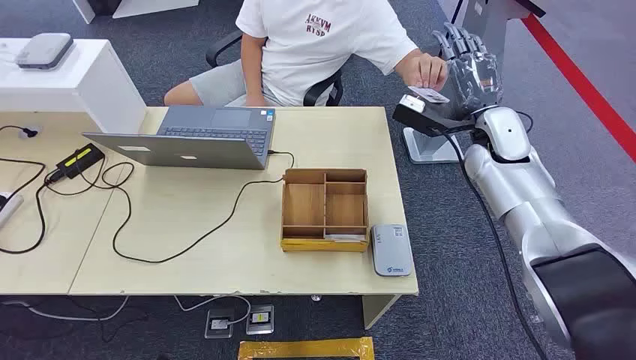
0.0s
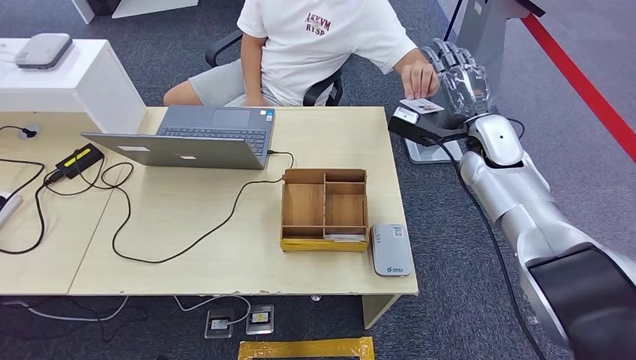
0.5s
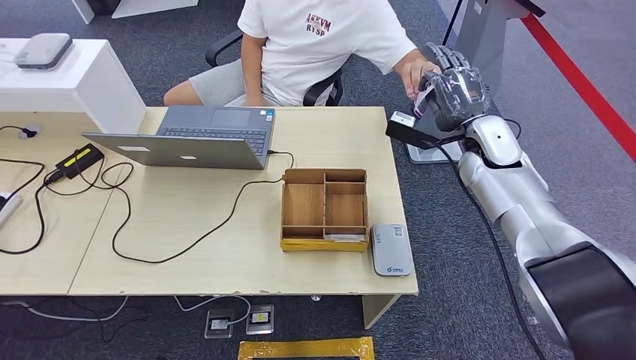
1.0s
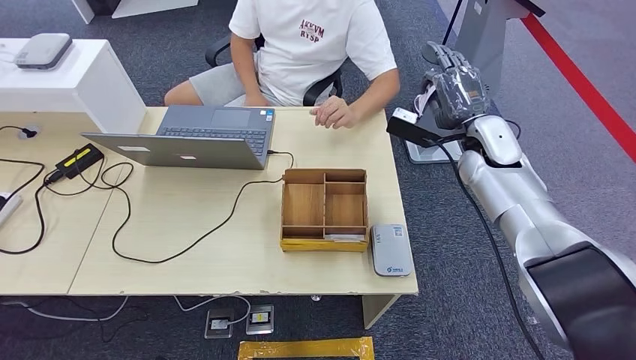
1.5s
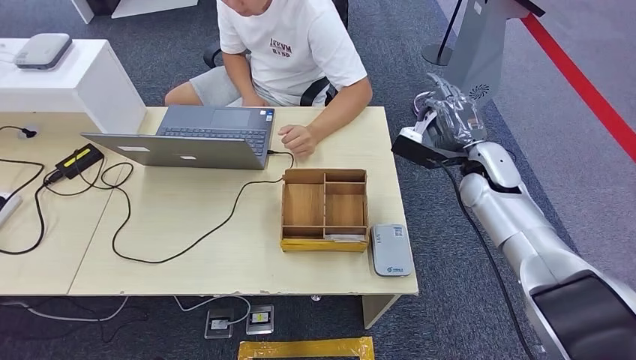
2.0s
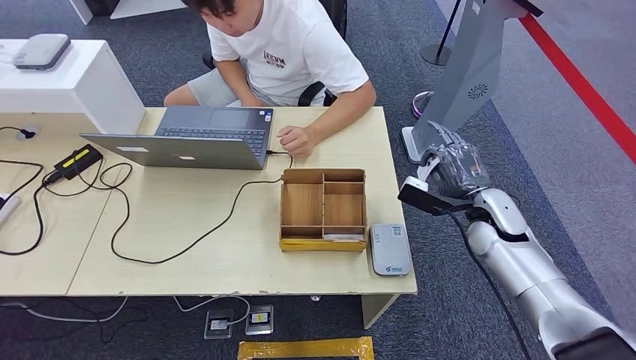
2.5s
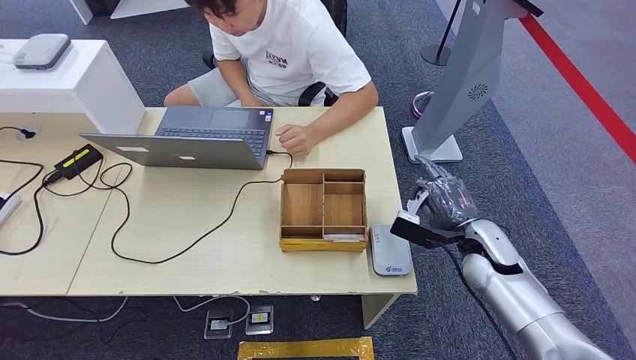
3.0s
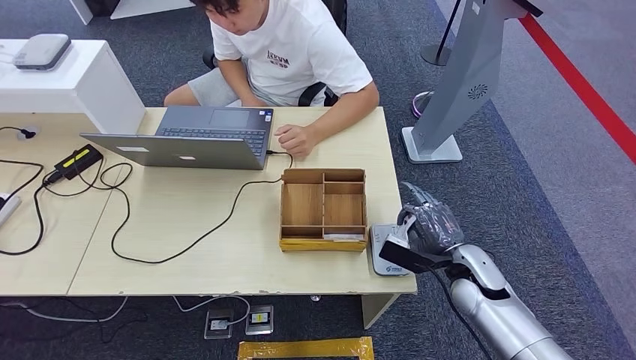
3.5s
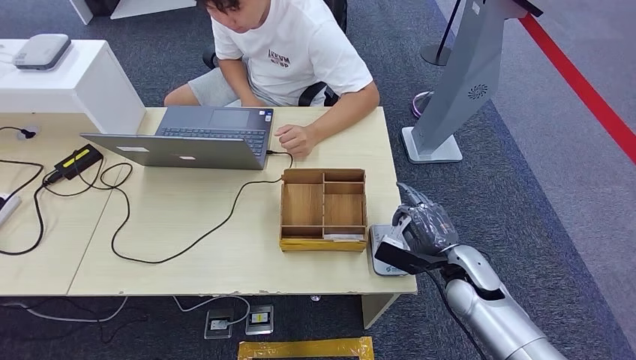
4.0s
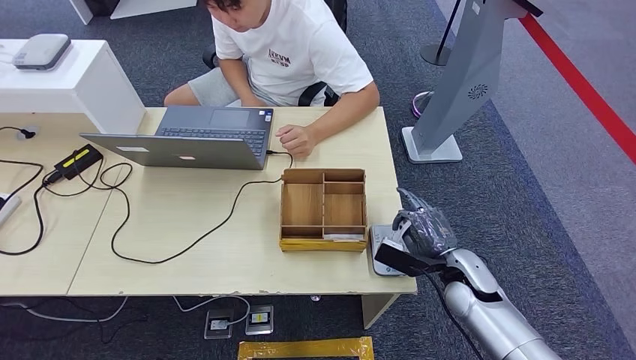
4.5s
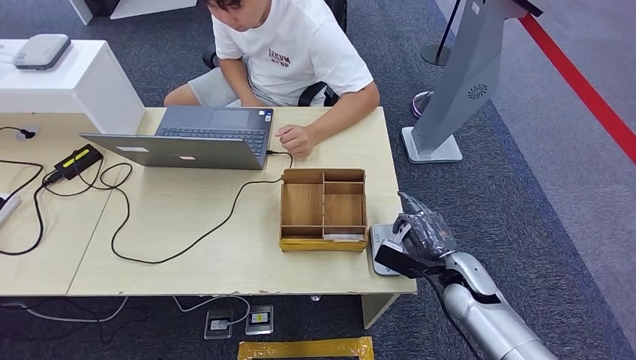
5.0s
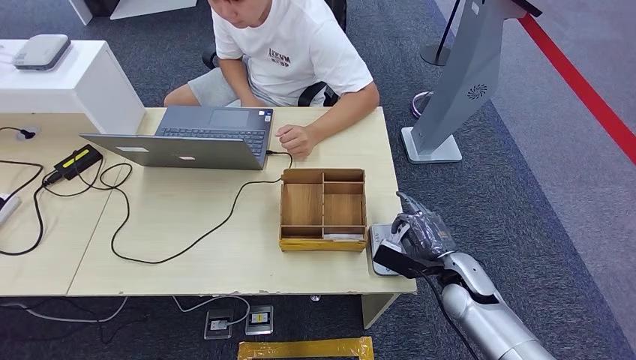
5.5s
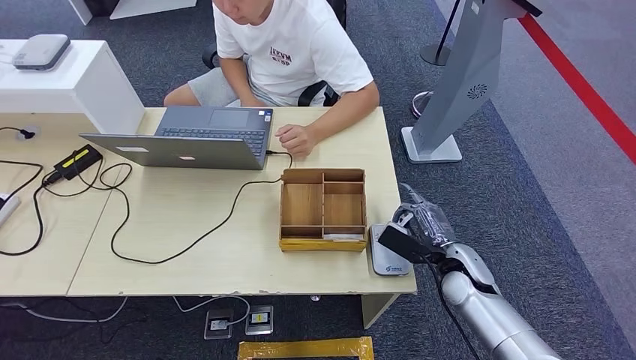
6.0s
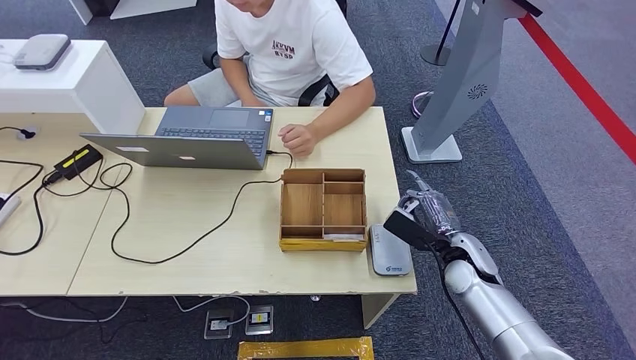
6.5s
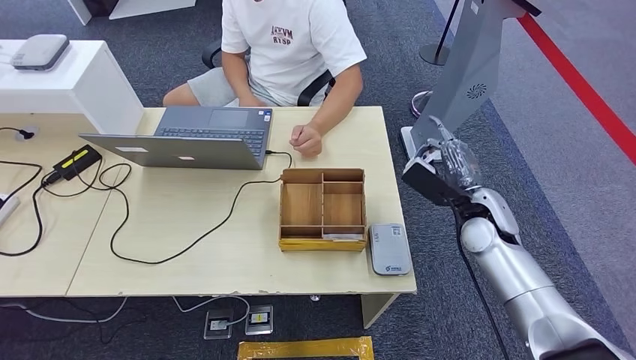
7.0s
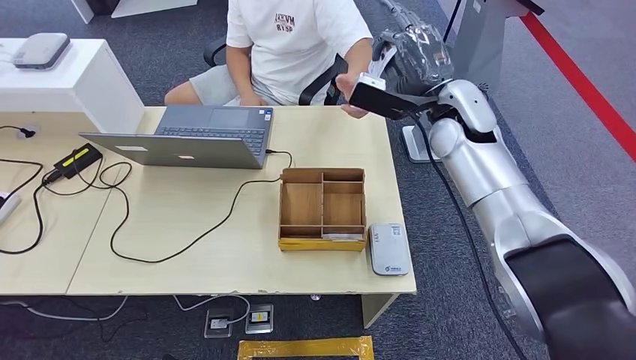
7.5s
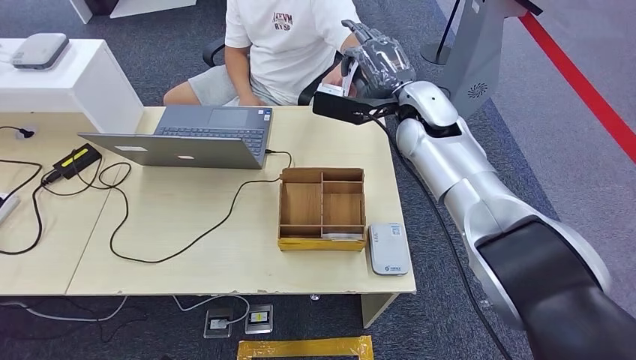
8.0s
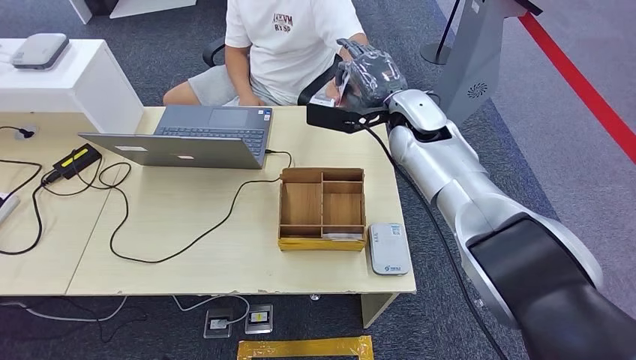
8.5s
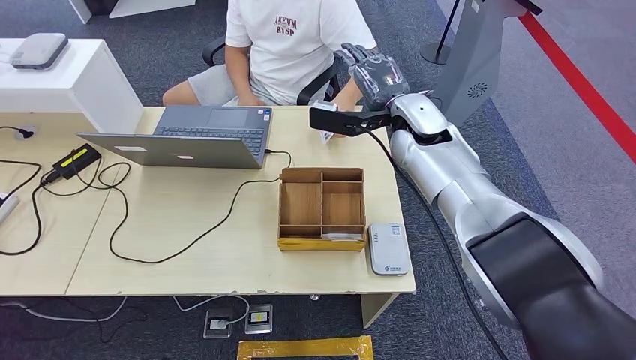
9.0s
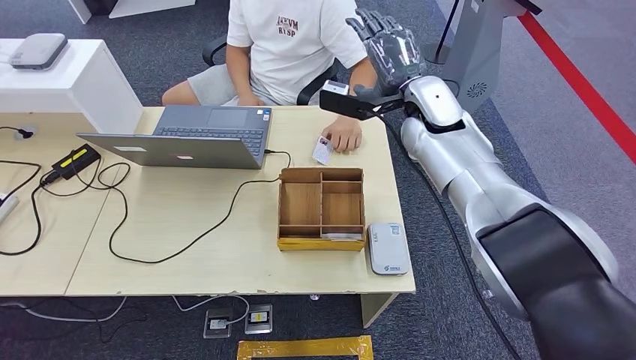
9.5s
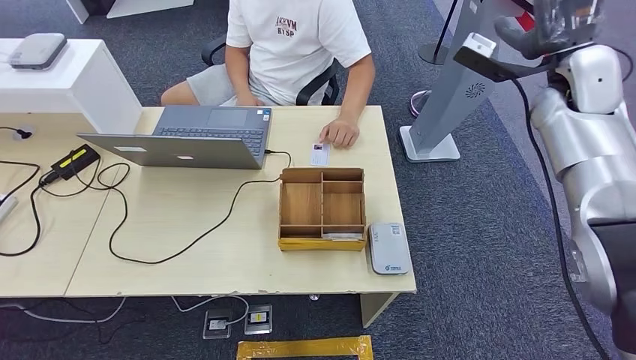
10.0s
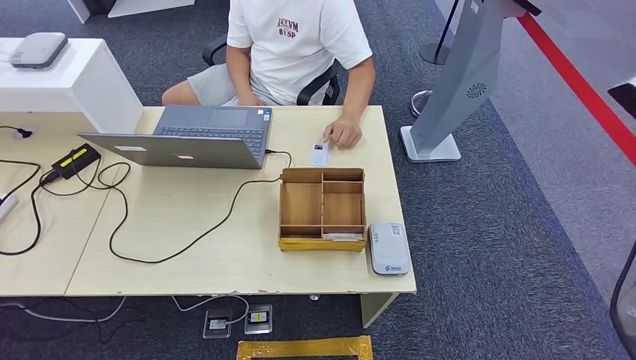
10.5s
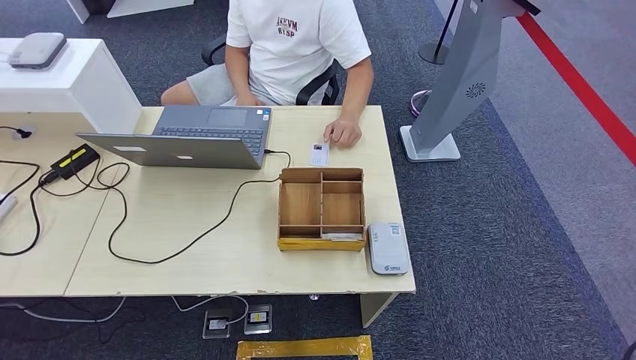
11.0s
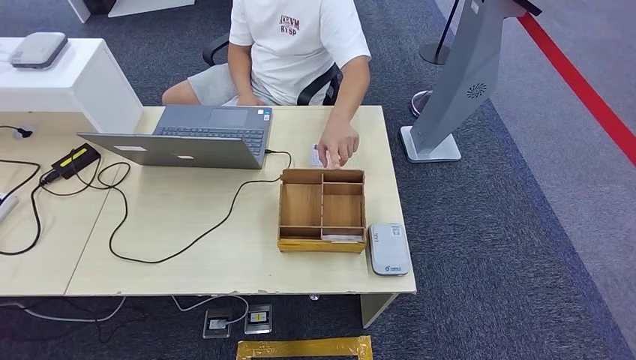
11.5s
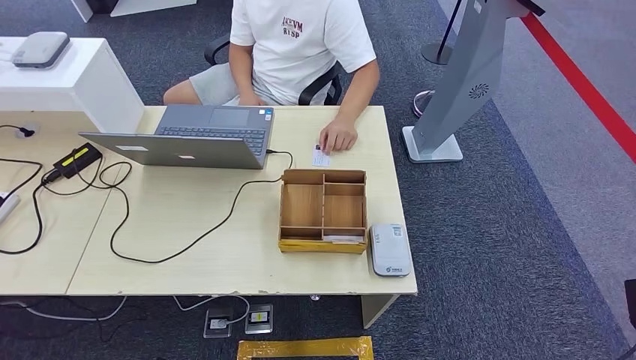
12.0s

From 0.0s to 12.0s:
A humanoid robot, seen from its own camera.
Step, from 0.0s to 2.5s: Take the ID card from the person's hand.
Step, from 3.0s to 7.0s: Place the ID card on the card reader.
Step, from 7.5s to 10.5s: Hand the ID card to the person.
From 2.0s to 4.0s: The right hand is displaced backward and downward by roughly 20 cm.
From 4.0s to 6.0s: The hands move only a little.
From 10.0s to 12.0s: The right hand heads downward, backward and to the right, covering roughly 50 cm.

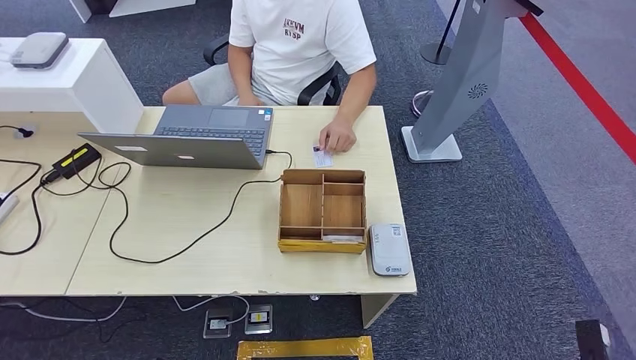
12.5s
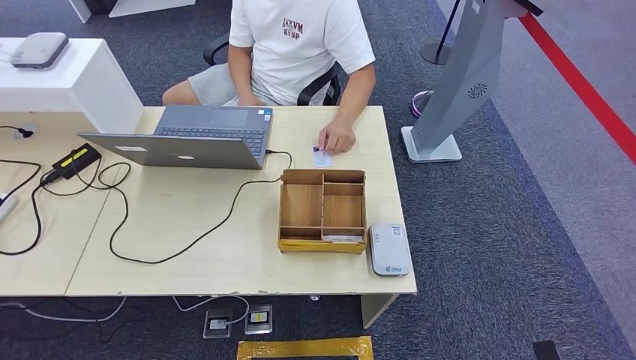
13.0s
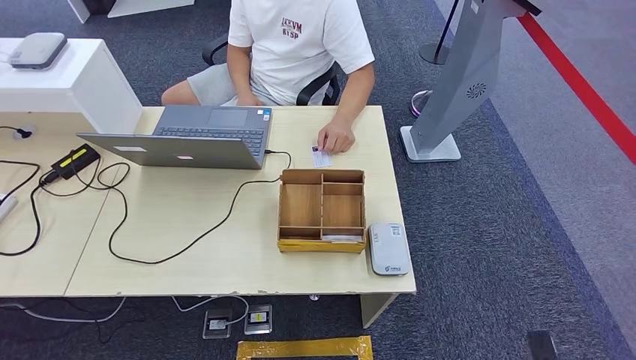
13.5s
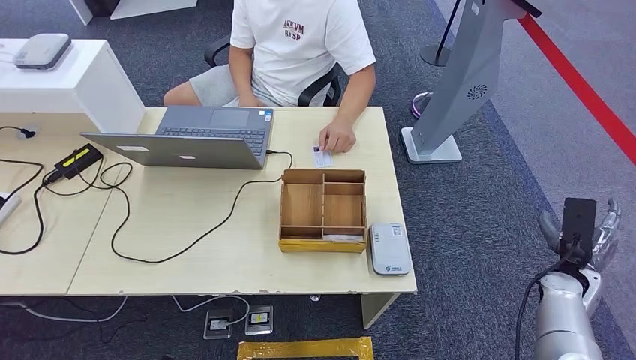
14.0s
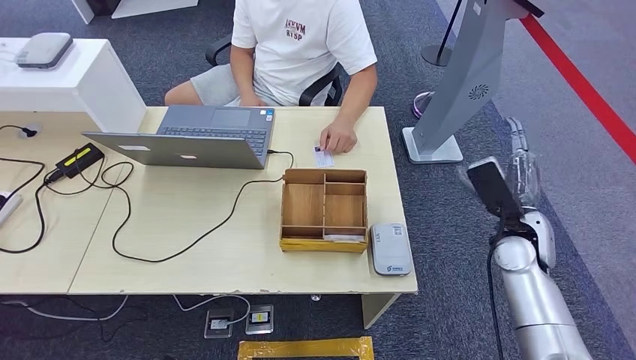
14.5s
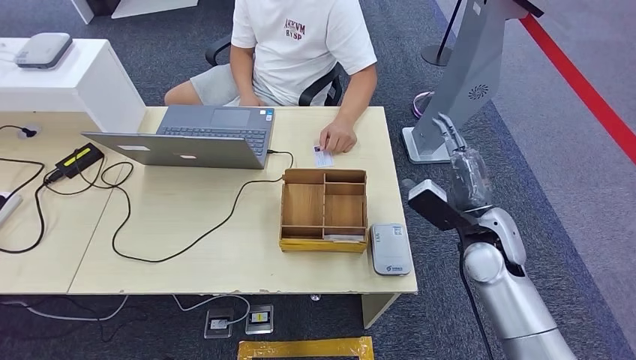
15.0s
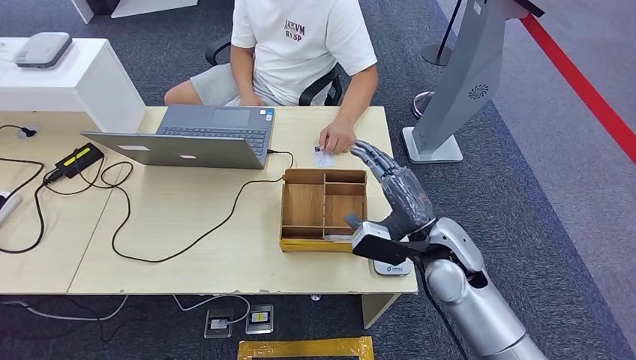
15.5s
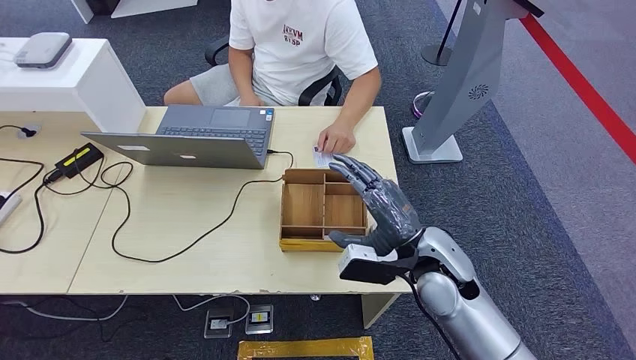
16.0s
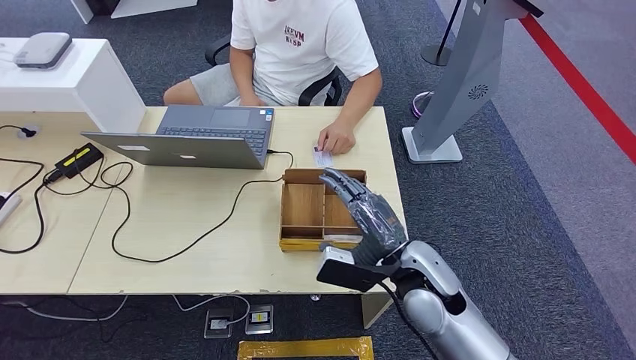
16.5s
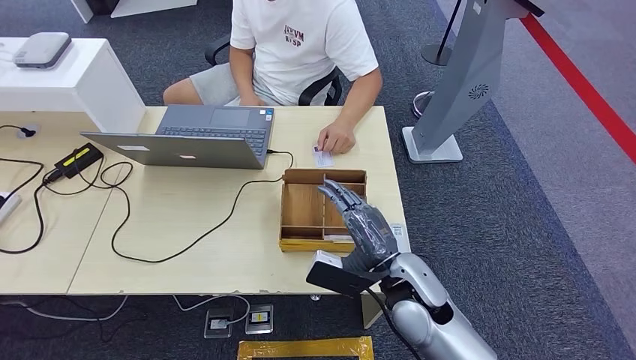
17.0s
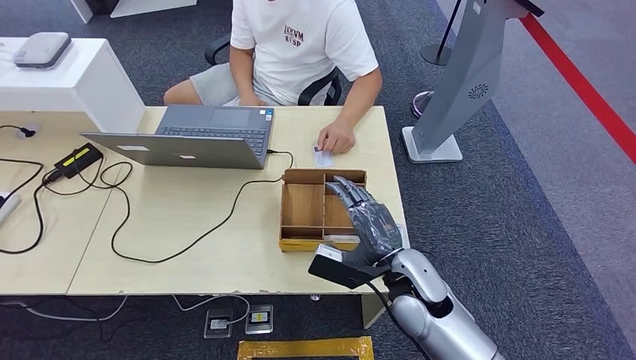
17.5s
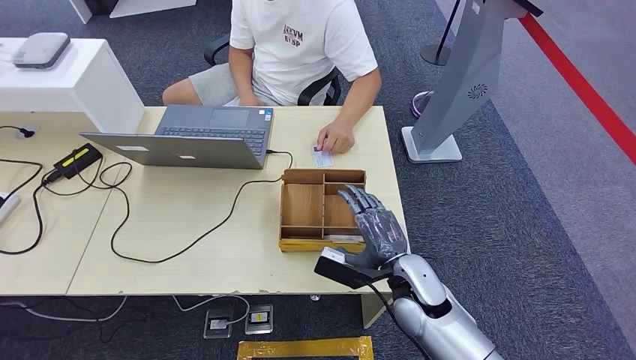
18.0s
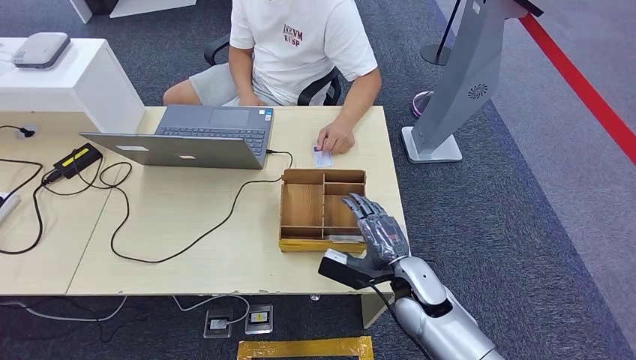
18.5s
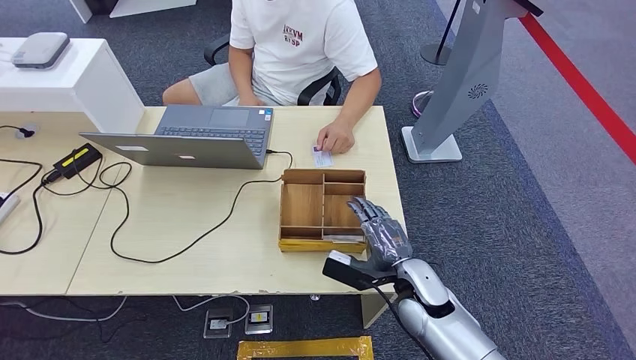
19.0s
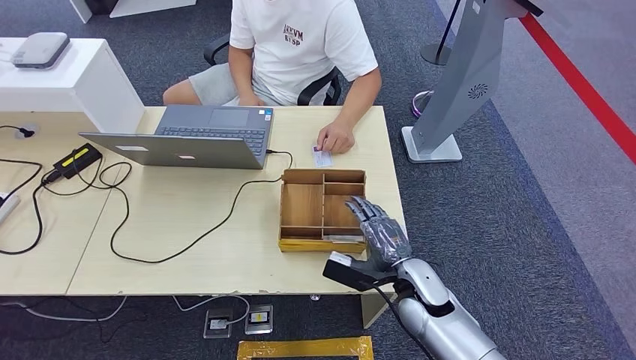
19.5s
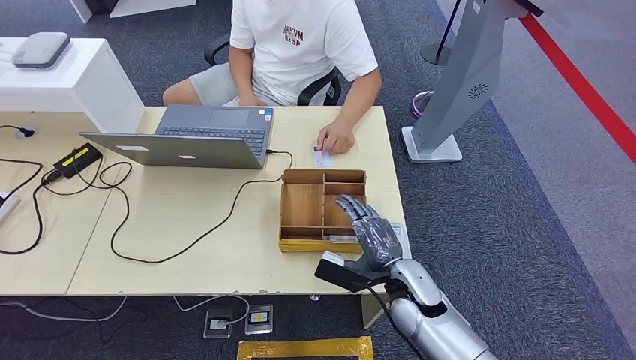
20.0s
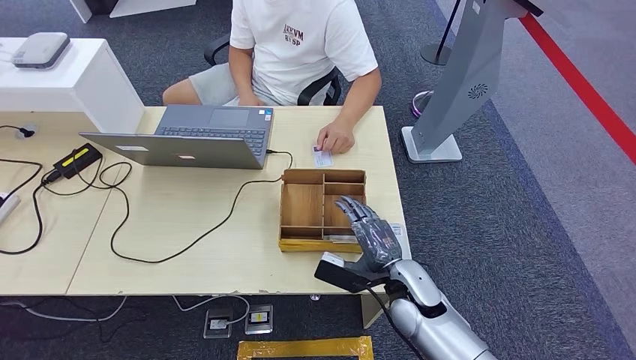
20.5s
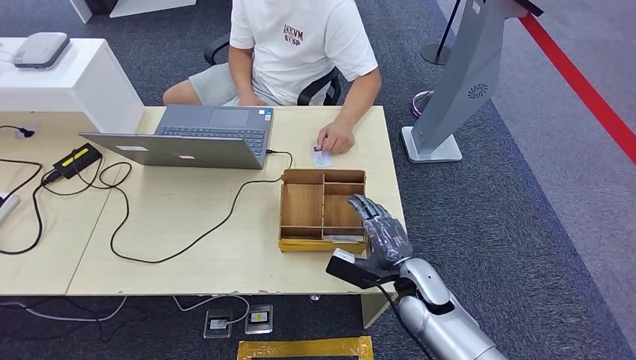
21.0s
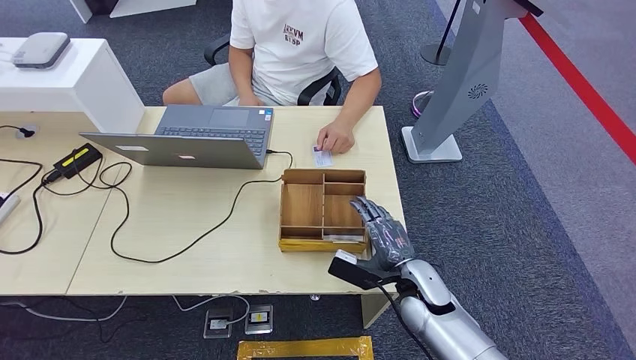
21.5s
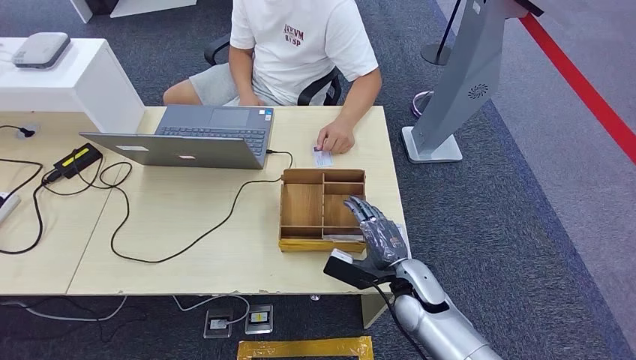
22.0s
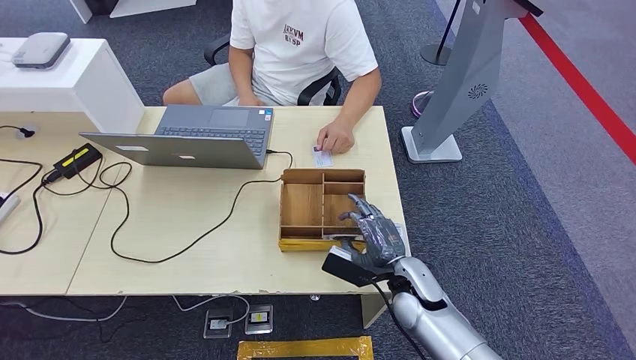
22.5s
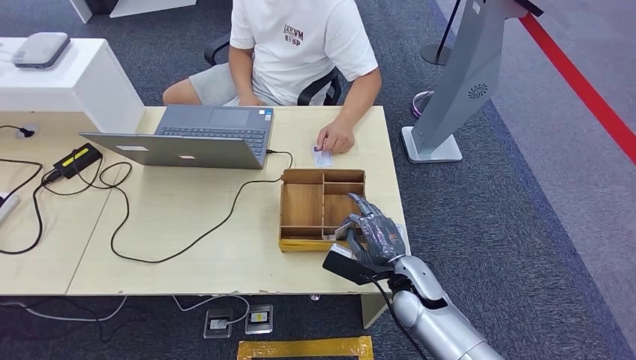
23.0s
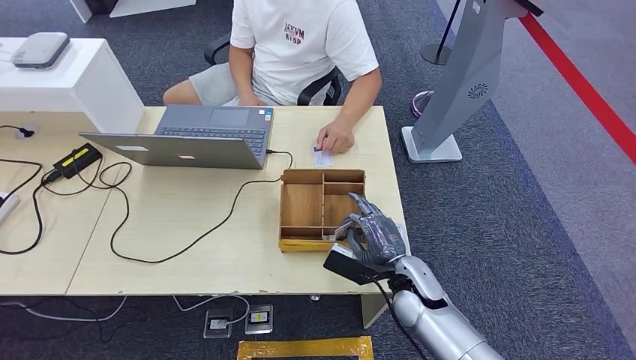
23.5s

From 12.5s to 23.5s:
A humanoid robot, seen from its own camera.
From 12.5s to 14.5s: The right hand goes roughly 35 cm forward, upward and to the left.
From 14.5s to 16.0s: The right hand heads to the left, covering roughly 15 cm.
From 16.0s to 18.0s: The right hand moves downward, roughly 10 cm.
From 18.0s to 23.5s: The hands move only a little.
